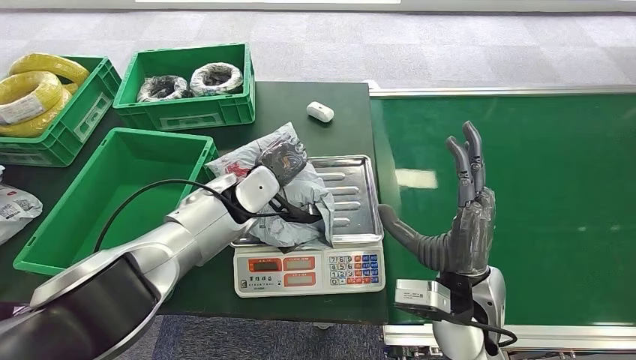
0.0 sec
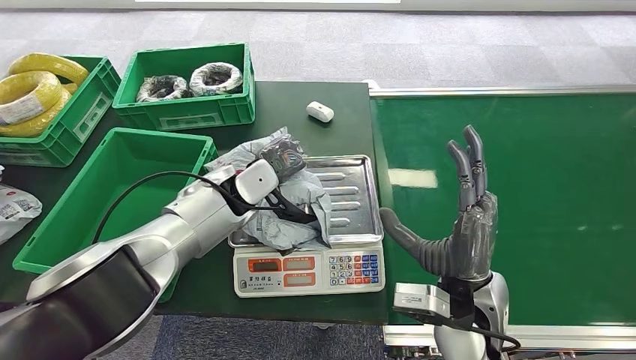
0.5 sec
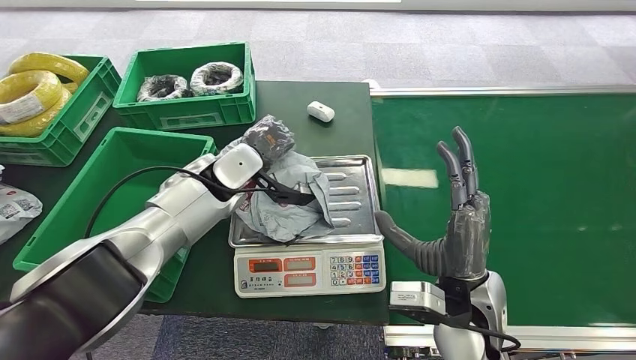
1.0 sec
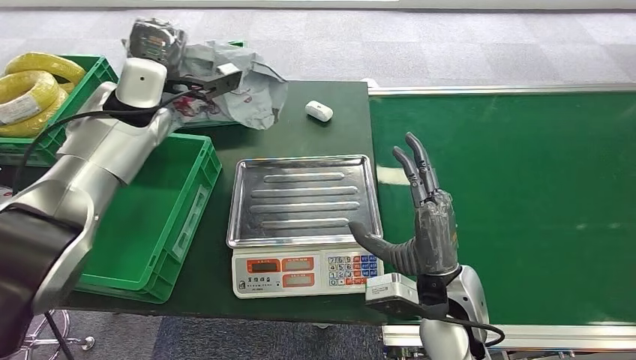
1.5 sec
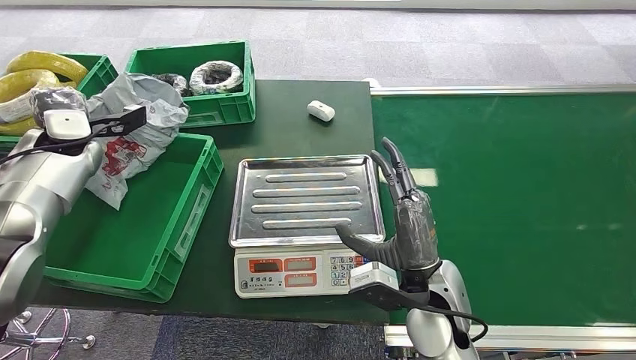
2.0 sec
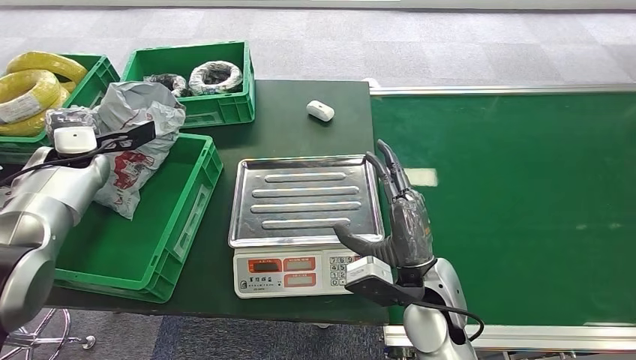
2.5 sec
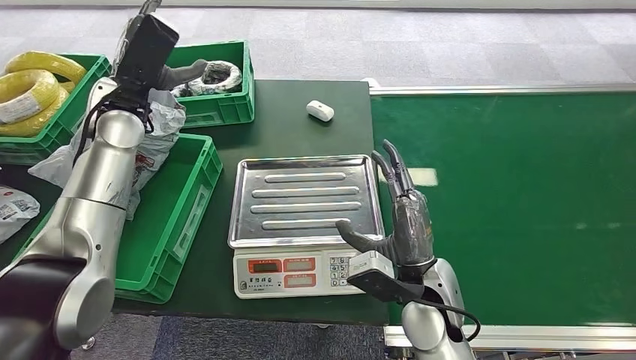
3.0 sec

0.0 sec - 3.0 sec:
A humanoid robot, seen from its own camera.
Step, 2.0 sec - 3.0 sec: Place the package into the parcel locker.

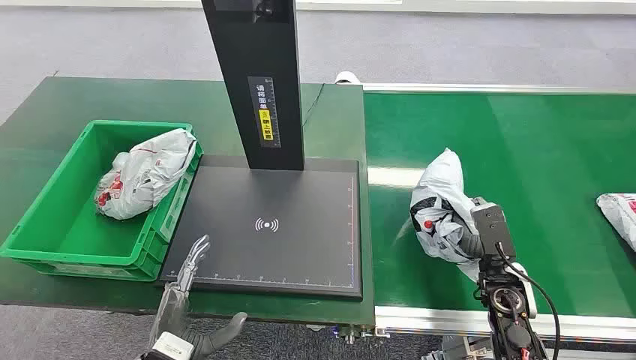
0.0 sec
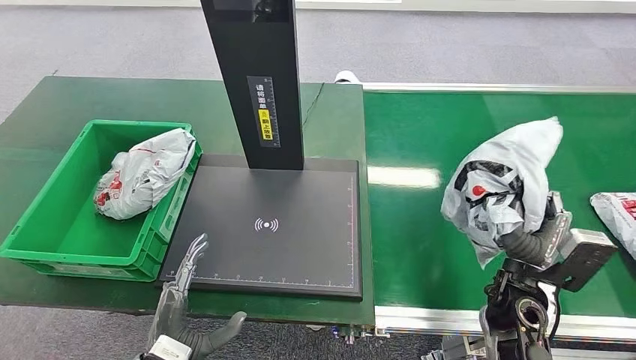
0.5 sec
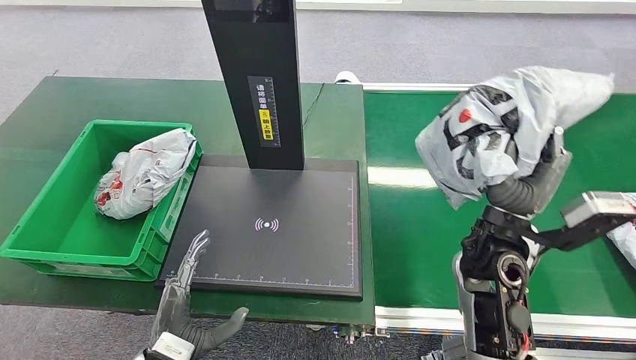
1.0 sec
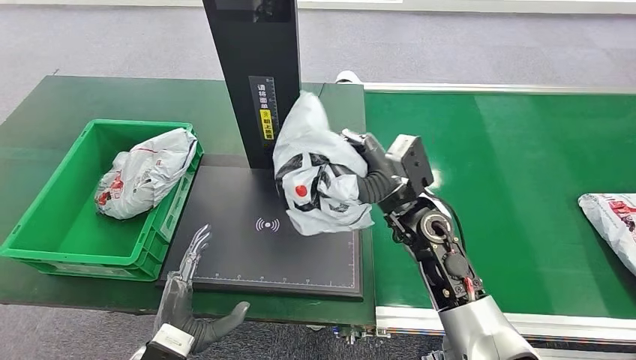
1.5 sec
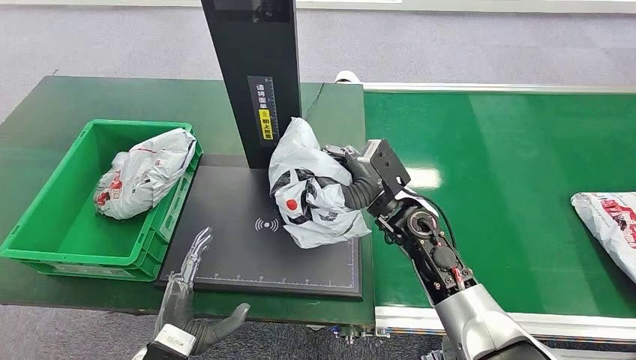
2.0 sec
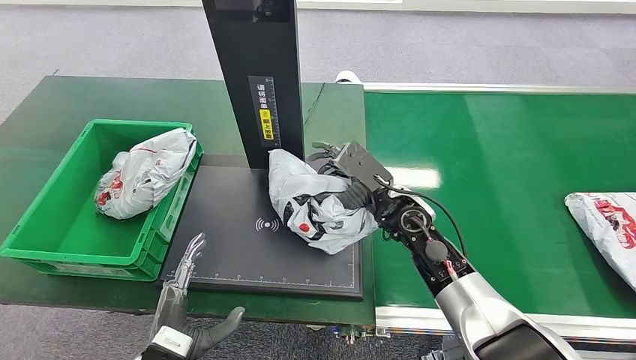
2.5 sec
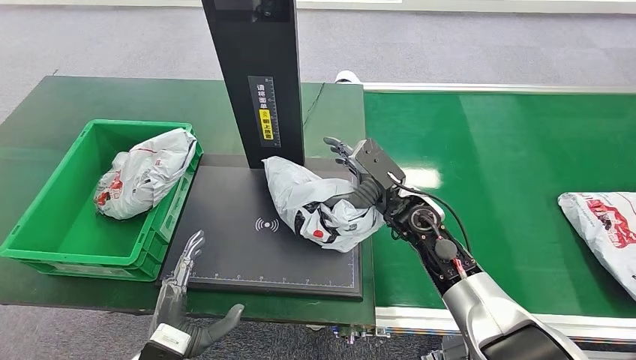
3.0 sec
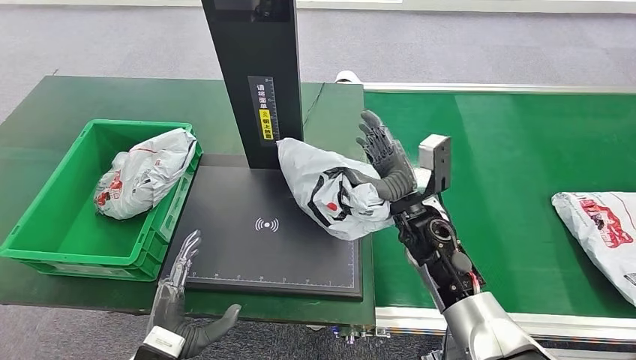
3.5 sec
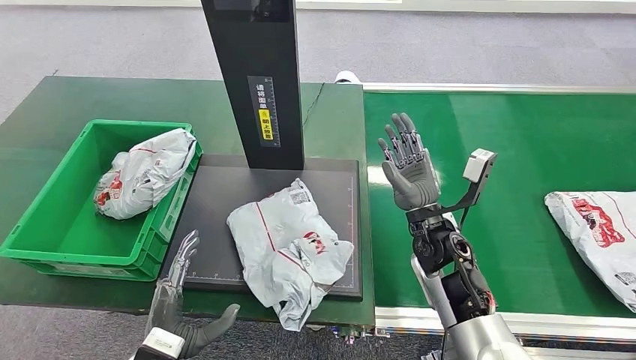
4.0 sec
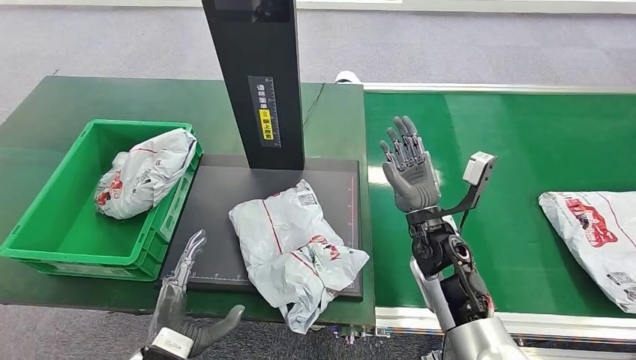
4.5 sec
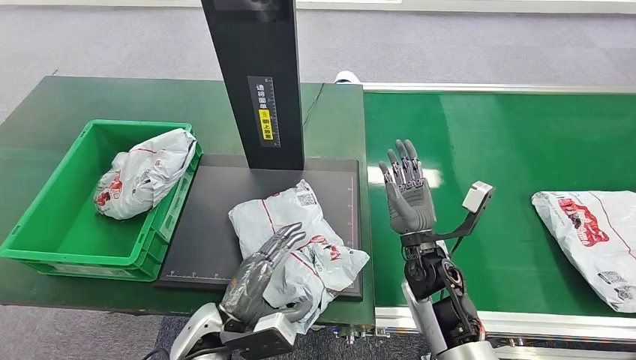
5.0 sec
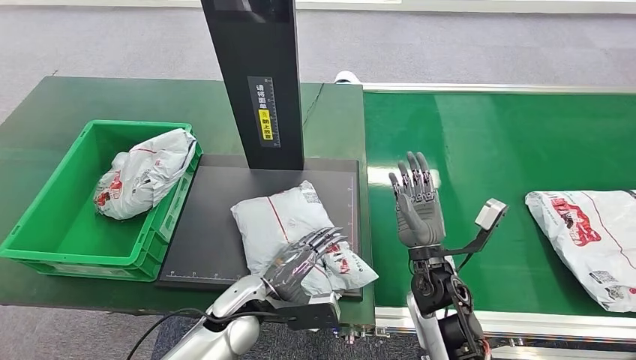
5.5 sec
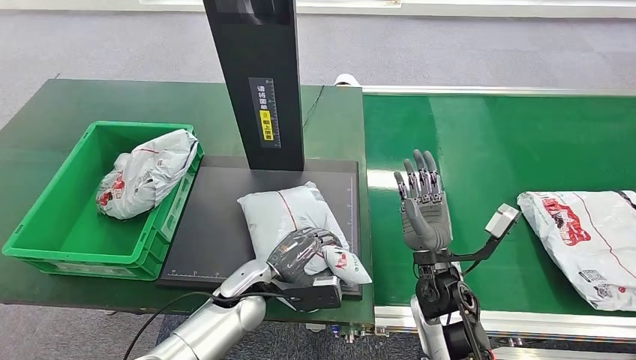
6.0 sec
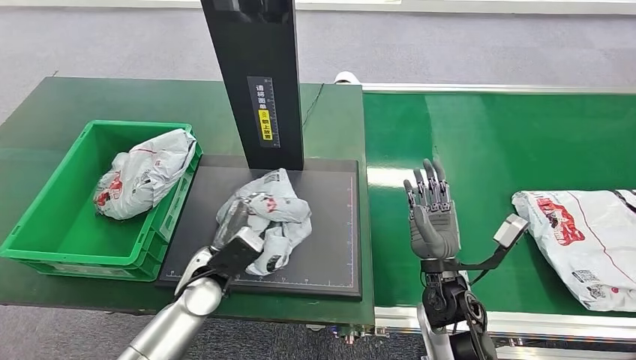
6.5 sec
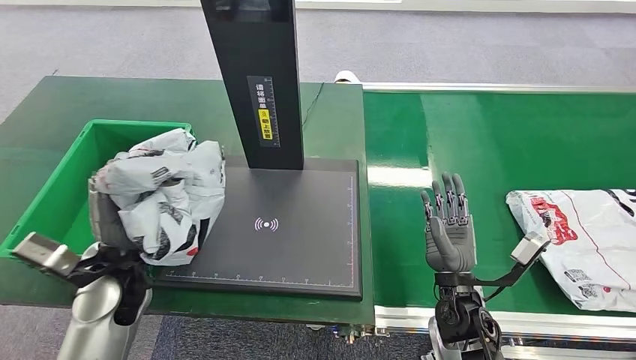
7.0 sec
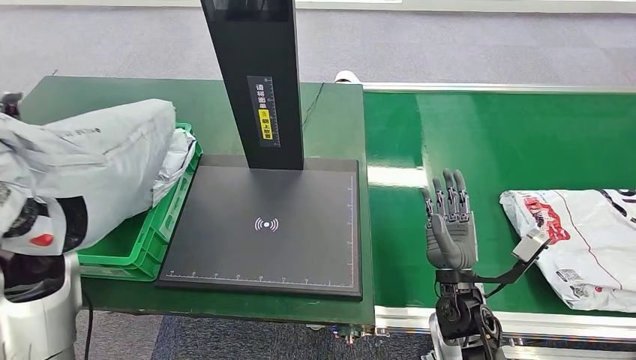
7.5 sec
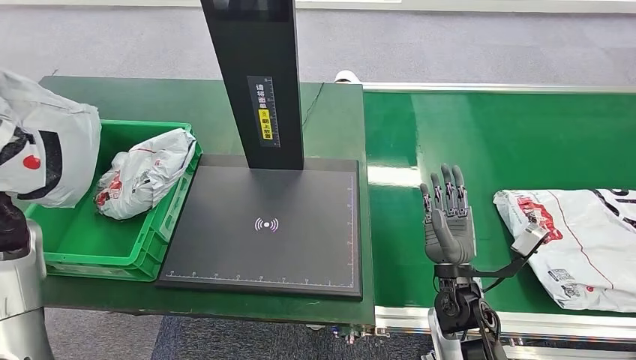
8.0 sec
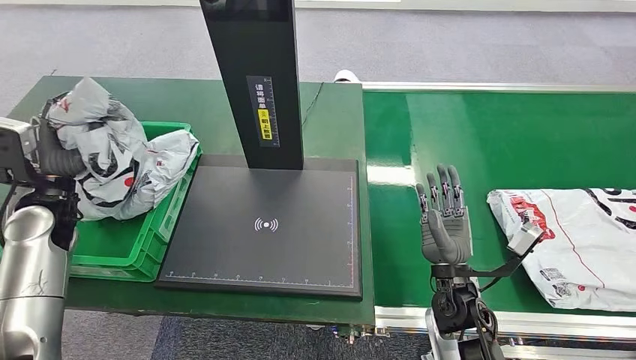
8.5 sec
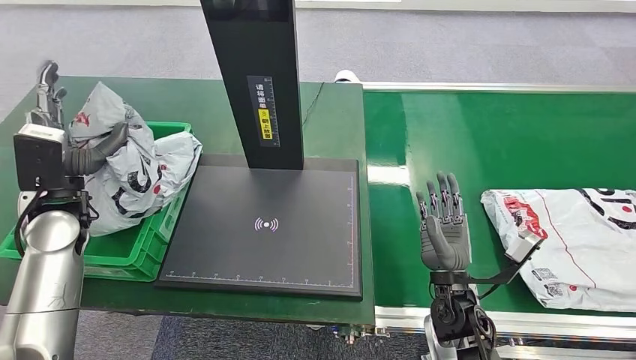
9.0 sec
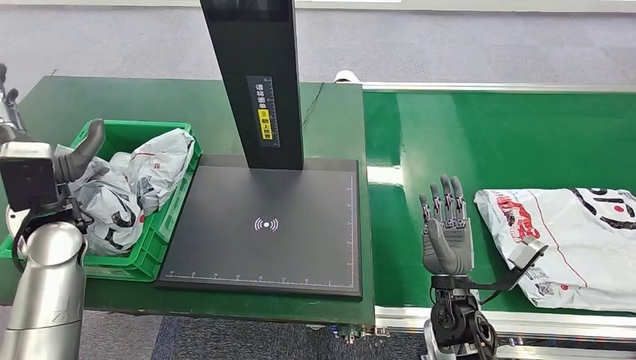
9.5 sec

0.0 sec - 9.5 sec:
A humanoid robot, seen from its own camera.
Step, 9.0 sec - 9.5 sec: Place the package into the parcel locker.
4.0 sec - 5.5 sec: The right hand shifts about 5 cm backward. The left hand heads forward and to the right, covering approximately 15 cm.

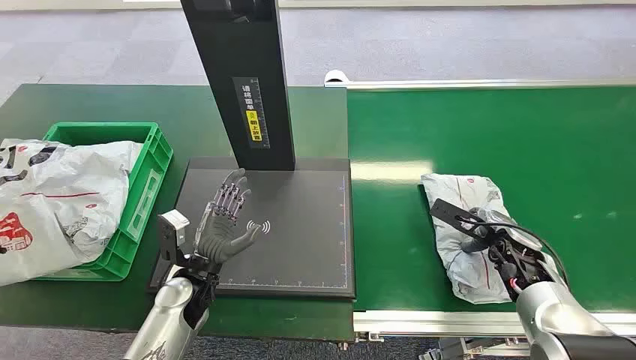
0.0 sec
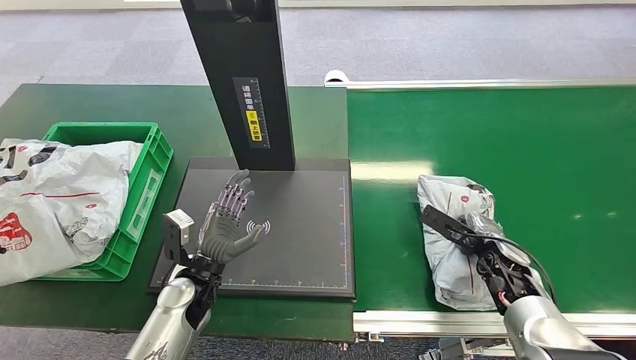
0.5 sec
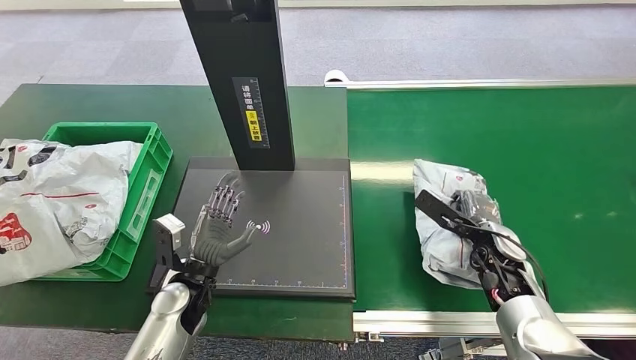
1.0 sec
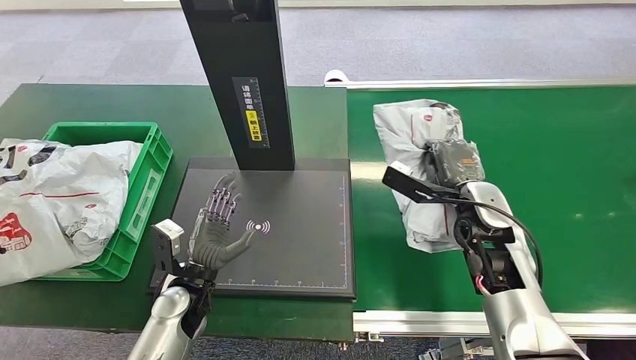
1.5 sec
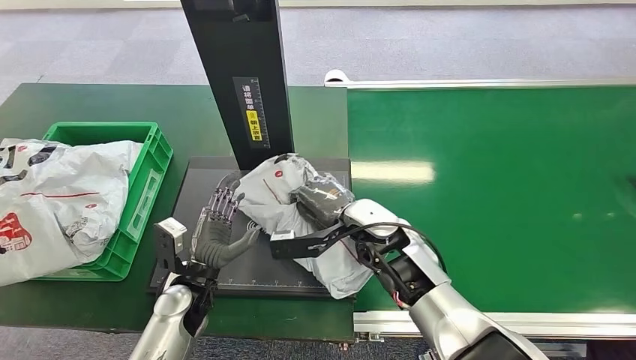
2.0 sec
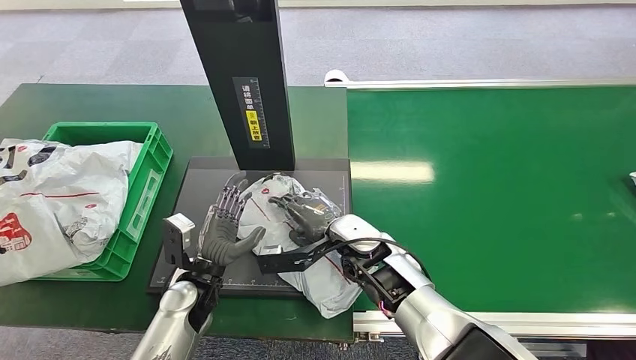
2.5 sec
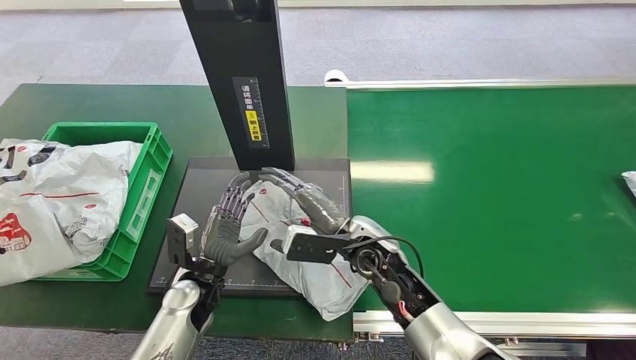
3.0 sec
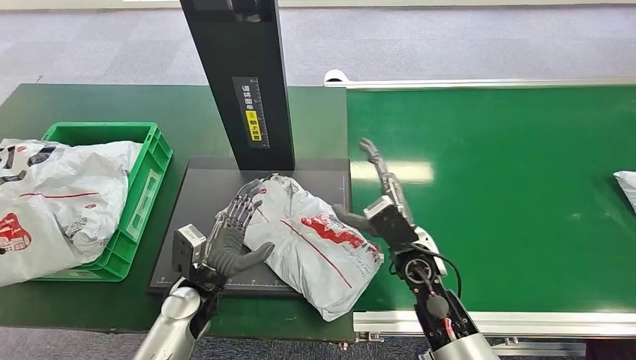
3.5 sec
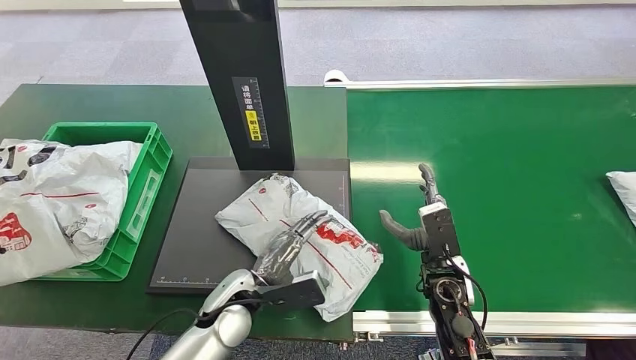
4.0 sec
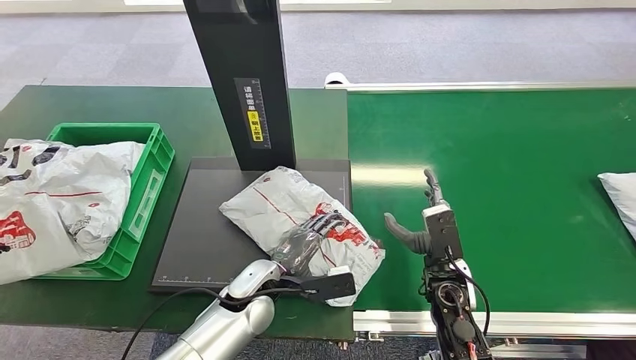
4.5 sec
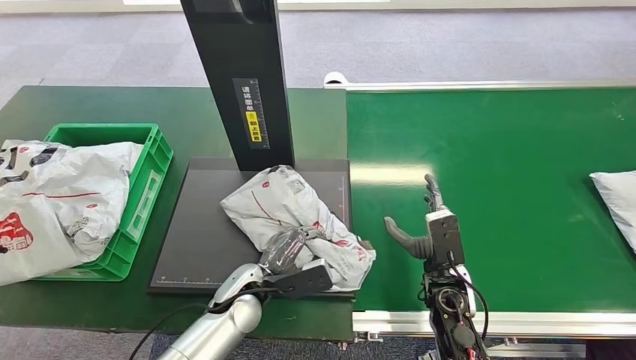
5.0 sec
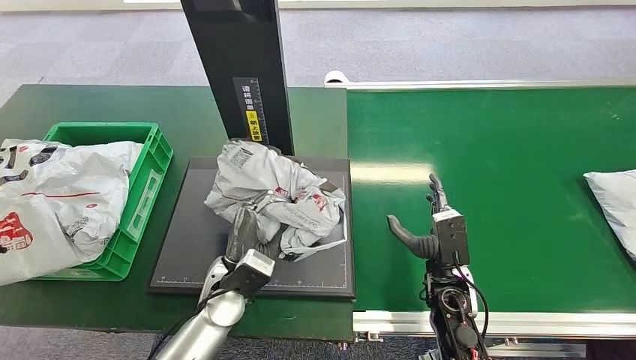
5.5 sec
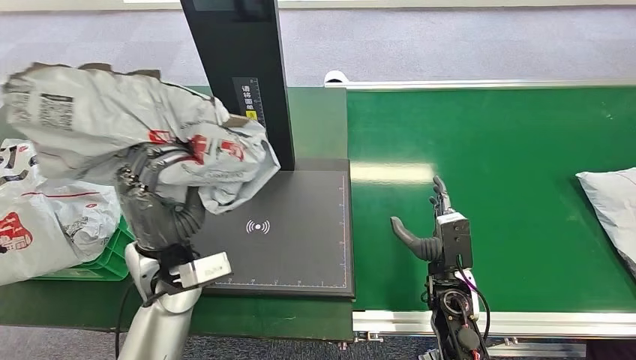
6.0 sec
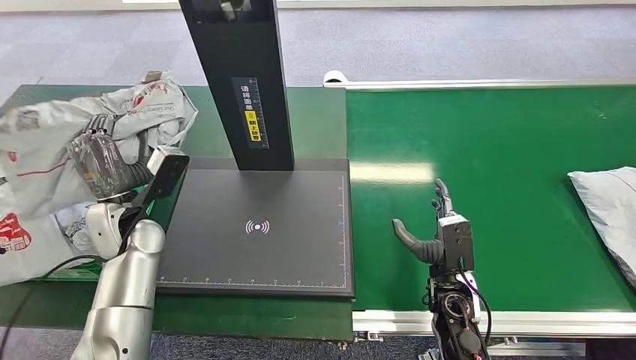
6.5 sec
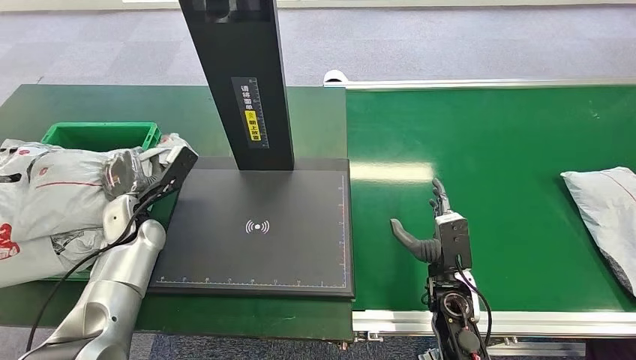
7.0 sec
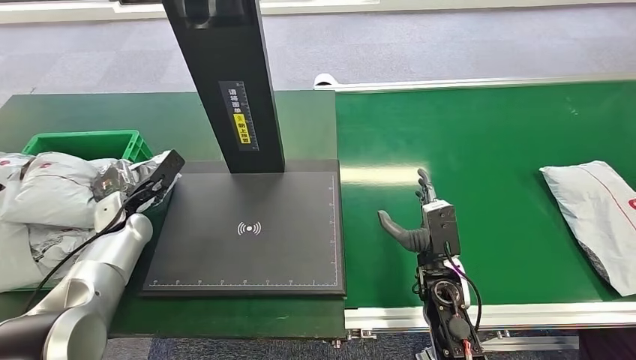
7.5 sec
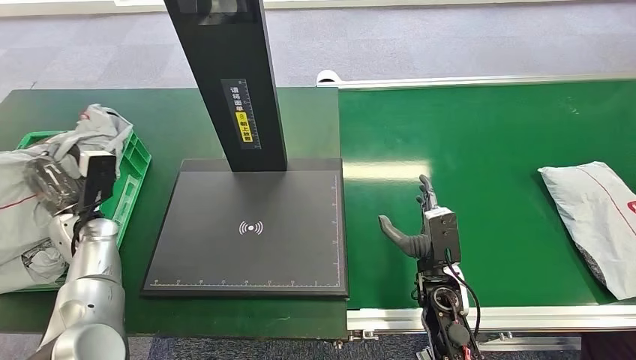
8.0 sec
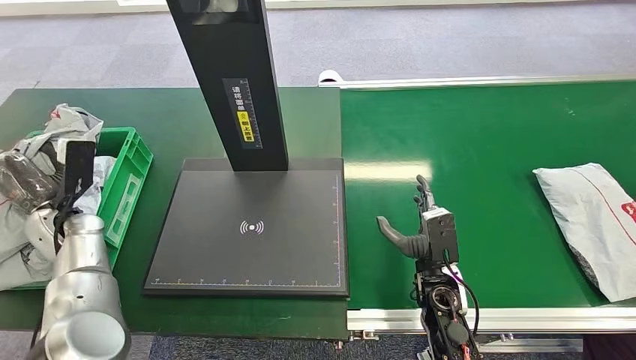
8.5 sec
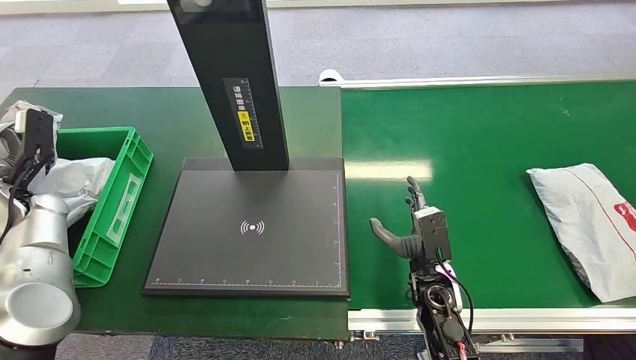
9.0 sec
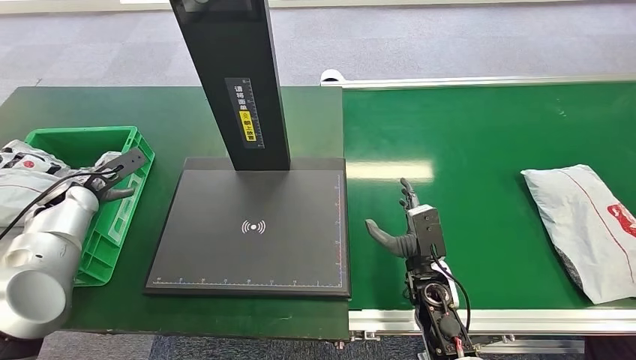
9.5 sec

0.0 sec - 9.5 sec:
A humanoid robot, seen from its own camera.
Step, 0.0 sec - 1.0 sec: Pick up the package from the conveyor belt.
Step, 1.5 sec - 2.5 sec: Place the package onto the inbound machine.
Step, 3.0 sec - 5.5 sec: Pick up the package from the inbound machine.
Step, 6.0 sec - 9.5 sec: Place the package into the parcel locker.
2.0 sec - 4.0 sec: The left hand shifts roughly 10 cm to the right; the right hand shifts some 15 cm to the right, downward and backward.
